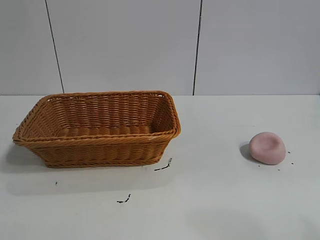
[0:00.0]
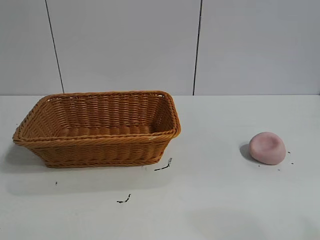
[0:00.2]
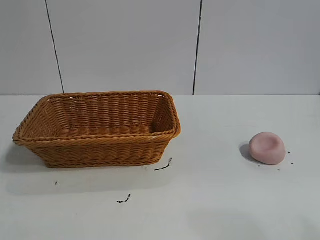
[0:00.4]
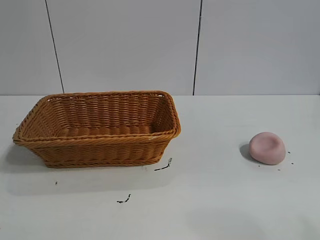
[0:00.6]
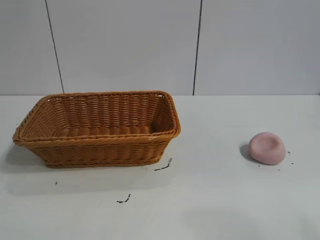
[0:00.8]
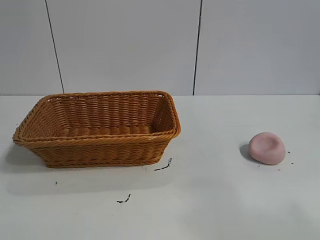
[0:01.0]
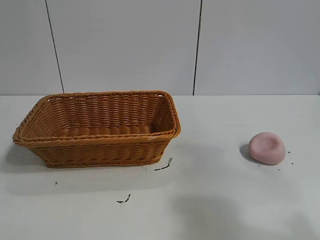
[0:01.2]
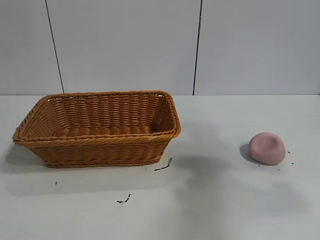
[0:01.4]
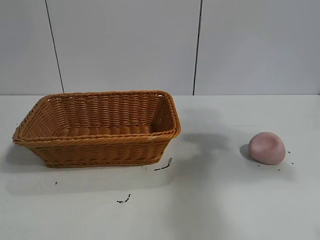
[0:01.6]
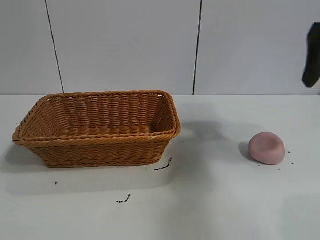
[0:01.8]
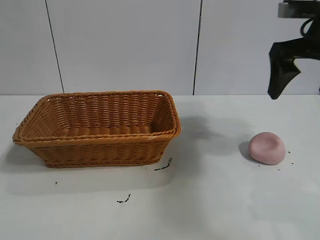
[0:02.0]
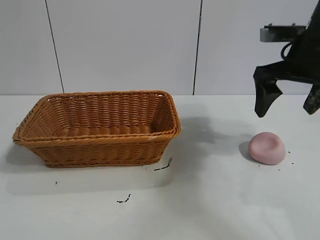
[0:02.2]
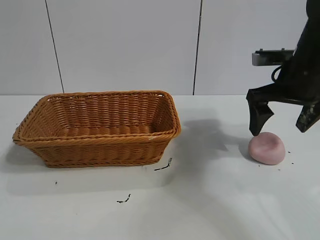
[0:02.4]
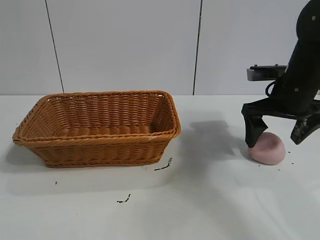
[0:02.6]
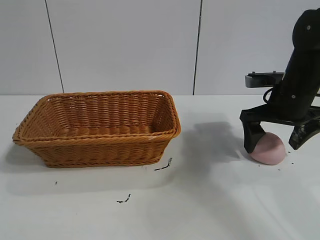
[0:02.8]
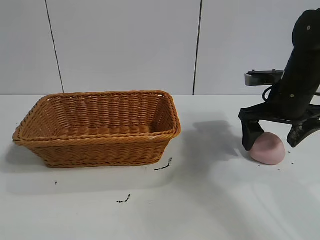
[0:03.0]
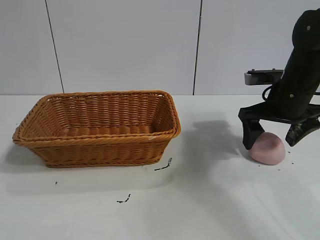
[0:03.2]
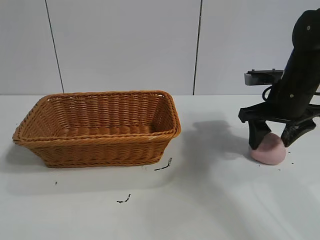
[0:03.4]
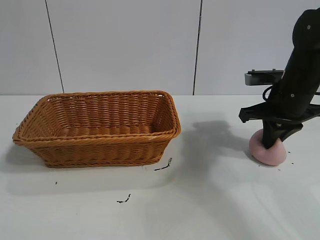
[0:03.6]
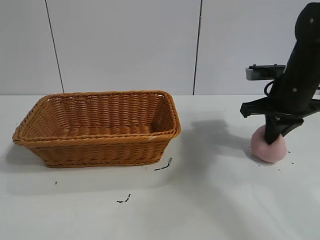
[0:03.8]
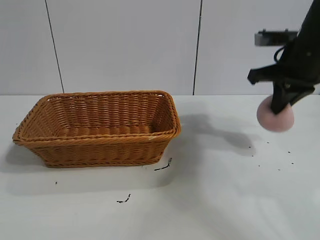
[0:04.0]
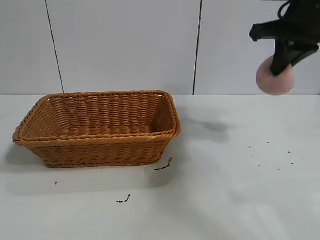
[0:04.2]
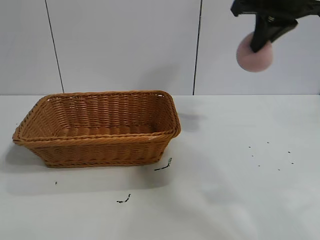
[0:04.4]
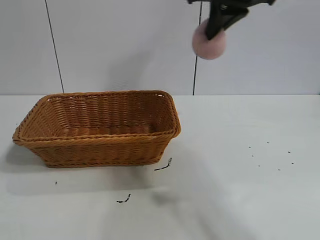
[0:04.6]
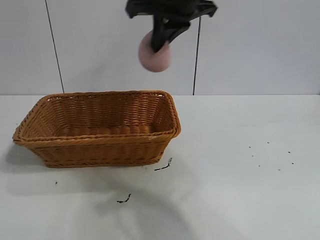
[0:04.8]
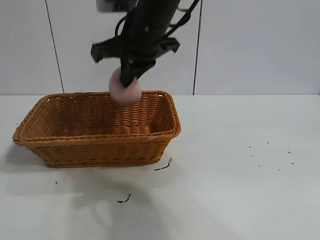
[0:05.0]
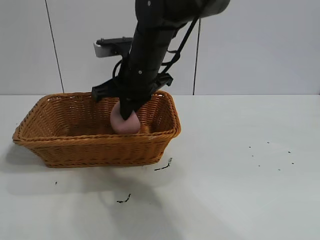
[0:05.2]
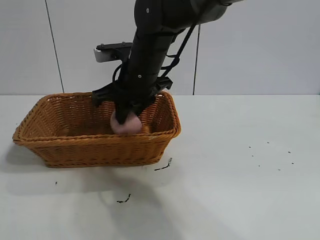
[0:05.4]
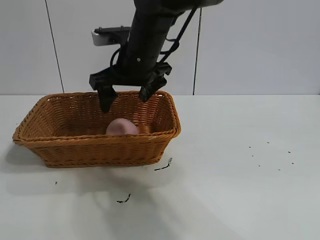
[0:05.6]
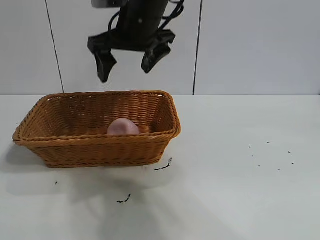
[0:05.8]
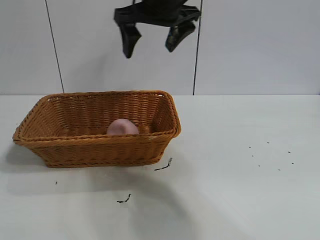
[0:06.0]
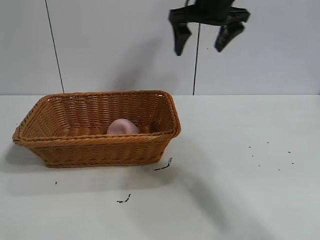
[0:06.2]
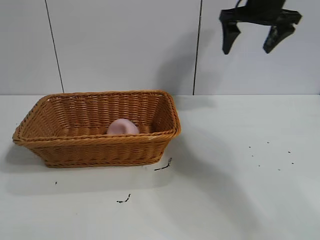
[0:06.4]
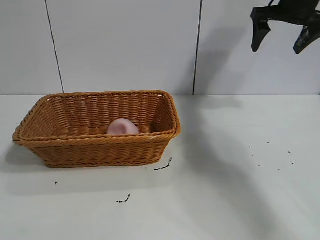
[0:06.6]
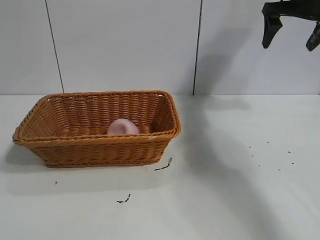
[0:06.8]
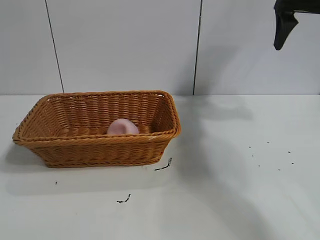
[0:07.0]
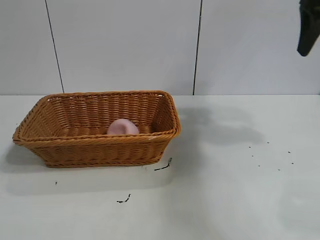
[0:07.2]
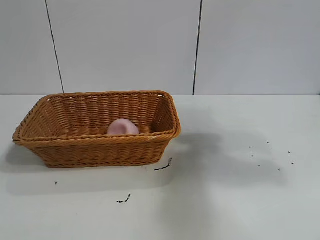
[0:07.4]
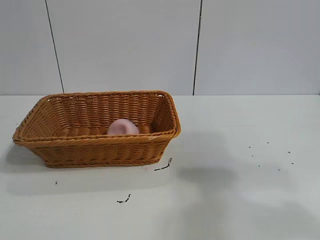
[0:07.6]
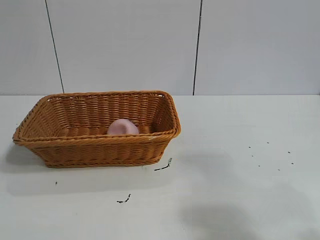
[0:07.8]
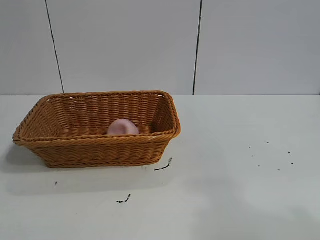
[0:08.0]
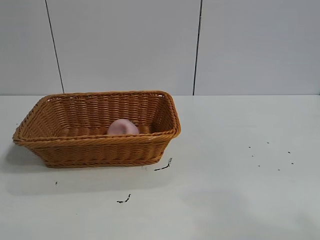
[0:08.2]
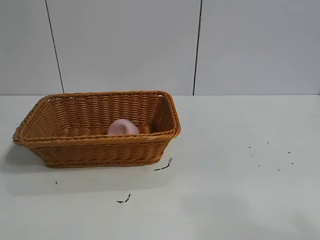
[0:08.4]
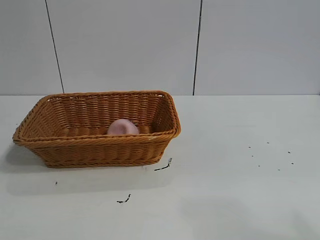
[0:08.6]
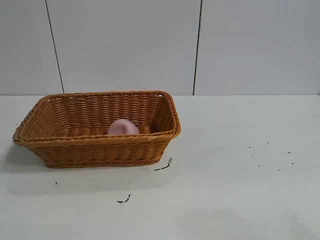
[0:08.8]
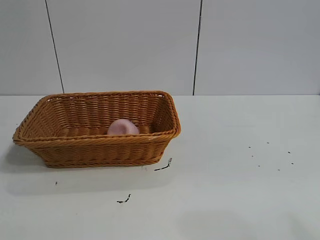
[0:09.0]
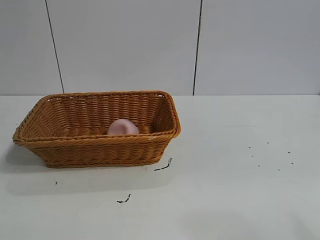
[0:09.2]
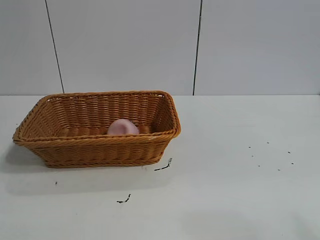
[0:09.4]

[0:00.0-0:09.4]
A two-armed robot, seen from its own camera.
Task of the whole recording: pick up the peach and put it into the basket.
Step, 0:00.8 to 0:03.6: Grasp the peach with right gripper.
Step, 0:04.0 to 0:05.6: Place the peach in the basket with right gripper.
